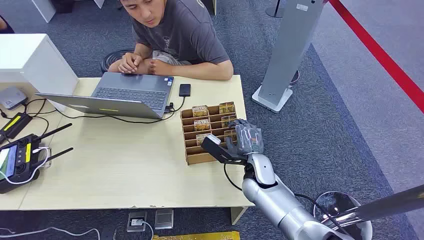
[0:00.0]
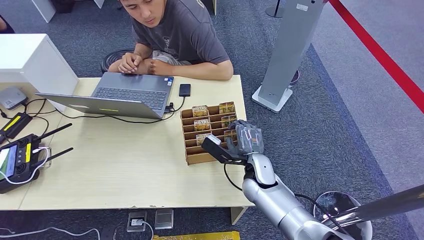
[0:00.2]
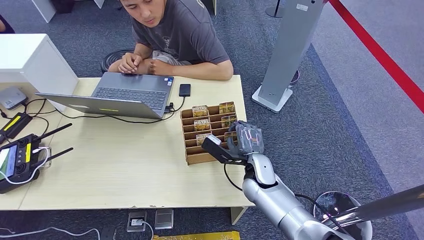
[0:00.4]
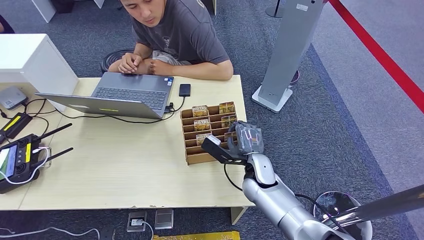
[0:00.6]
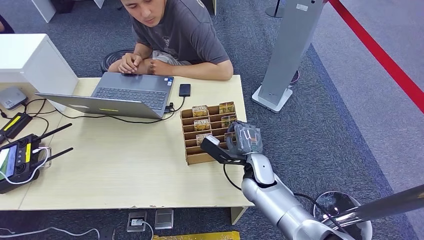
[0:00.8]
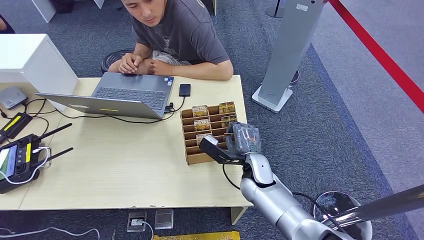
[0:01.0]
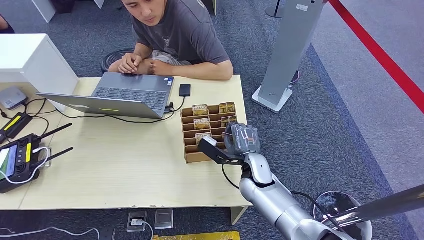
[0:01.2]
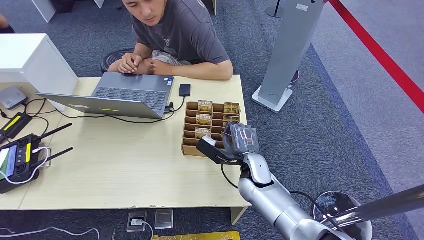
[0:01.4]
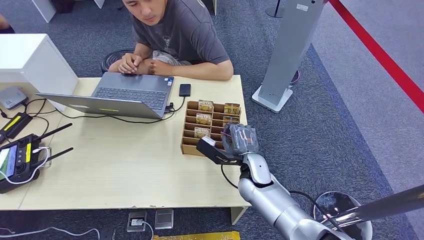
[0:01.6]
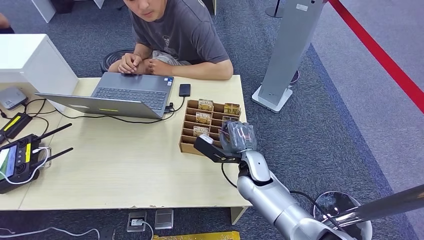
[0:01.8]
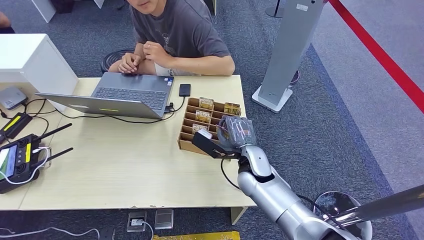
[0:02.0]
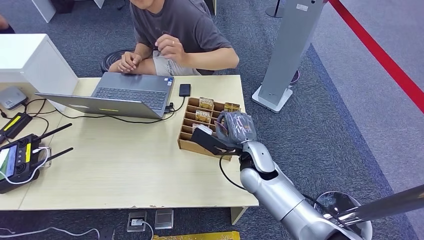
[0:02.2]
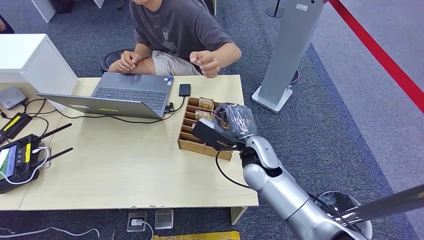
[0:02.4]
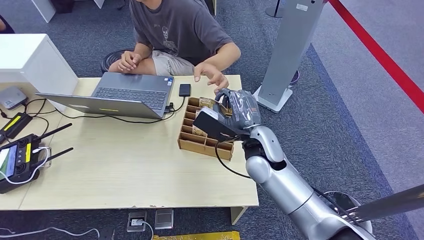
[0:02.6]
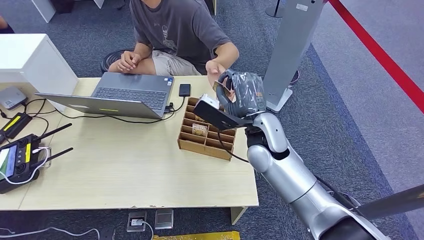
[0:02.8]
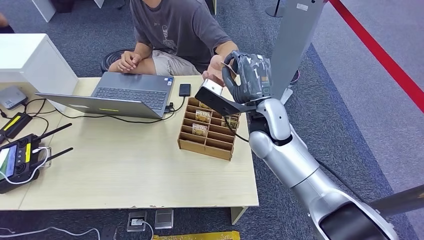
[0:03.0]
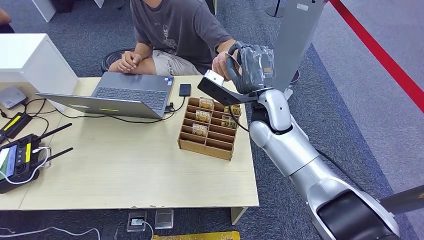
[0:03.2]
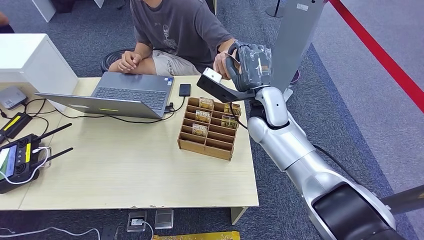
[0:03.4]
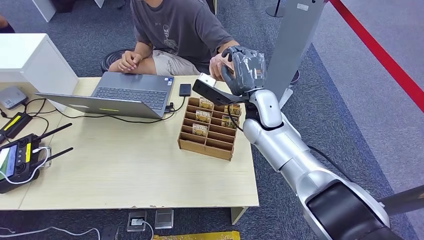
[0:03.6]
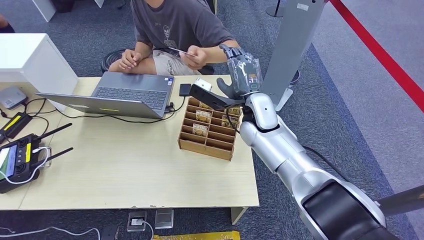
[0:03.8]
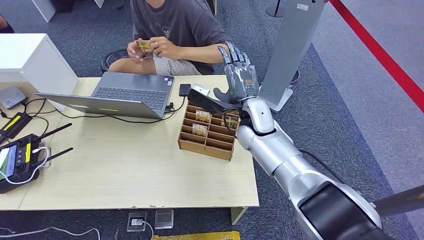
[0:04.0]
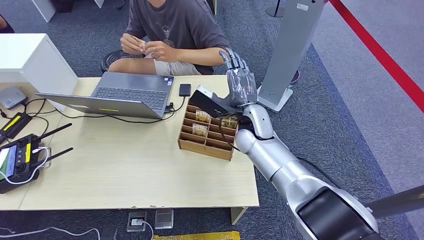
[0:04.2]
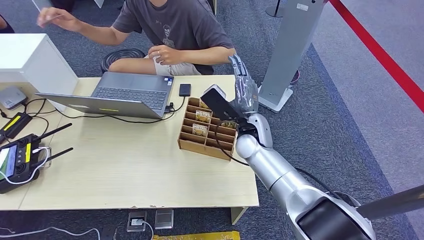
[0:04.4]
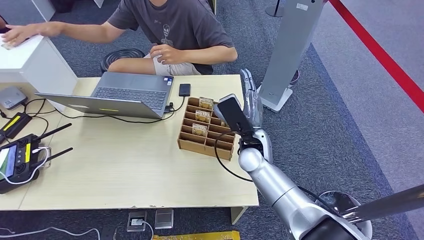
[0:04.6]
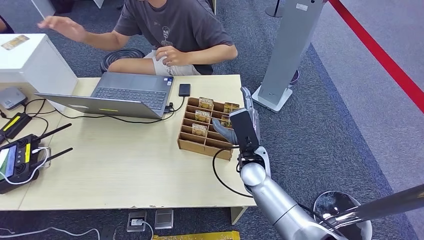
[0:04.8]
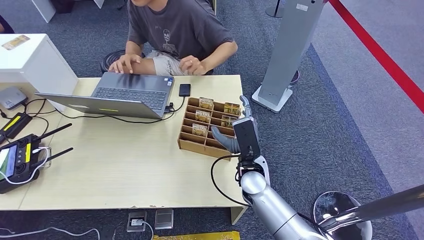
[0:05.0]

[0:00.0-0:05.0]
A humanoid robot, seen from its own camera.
Step, 0:00.0 to 0:02.2: Pick up the room card from the card holder.
Step, 0:02.4 to 0:05.0: Hand the room card to the target.
0:01.6 to 0:03.4: The right hand is displaced upward and forward by about 20 cm.
0:03.4 to 0:05.0: The right hand moves downward and backward, roughly 20 cm.

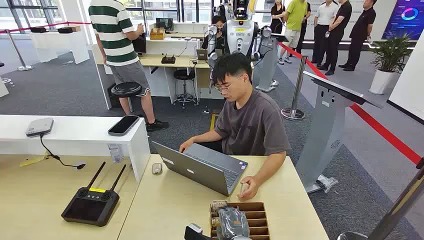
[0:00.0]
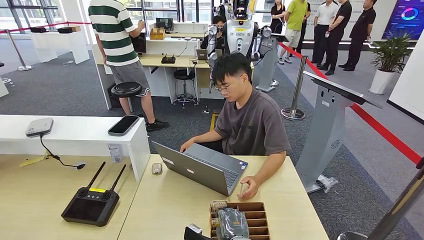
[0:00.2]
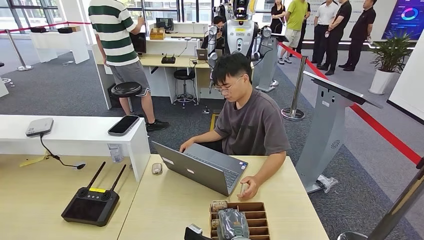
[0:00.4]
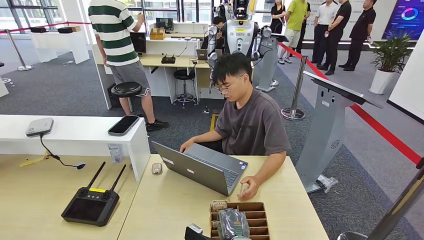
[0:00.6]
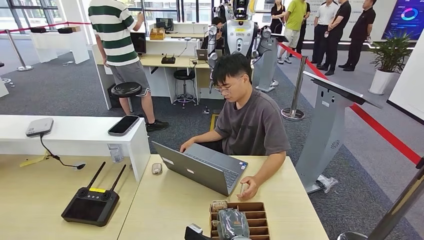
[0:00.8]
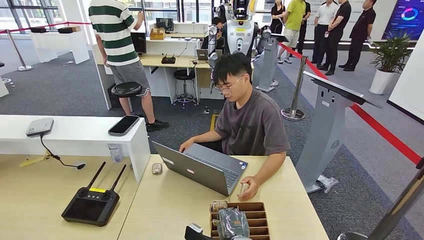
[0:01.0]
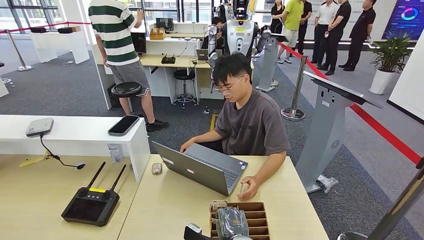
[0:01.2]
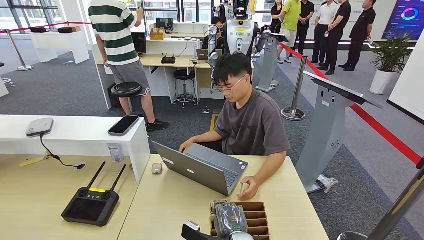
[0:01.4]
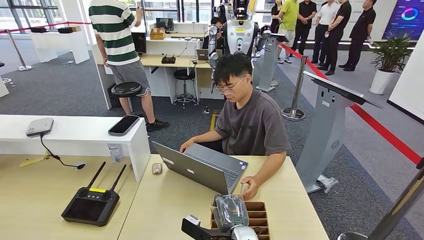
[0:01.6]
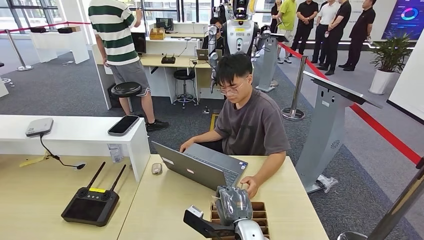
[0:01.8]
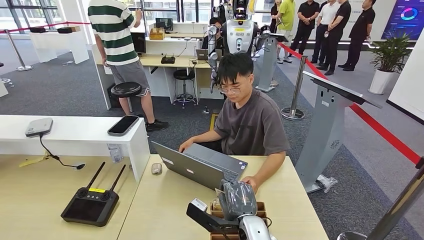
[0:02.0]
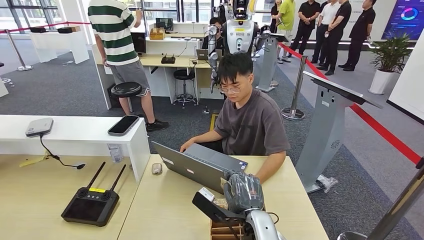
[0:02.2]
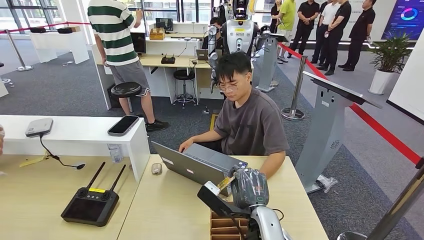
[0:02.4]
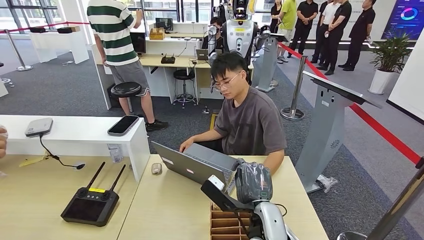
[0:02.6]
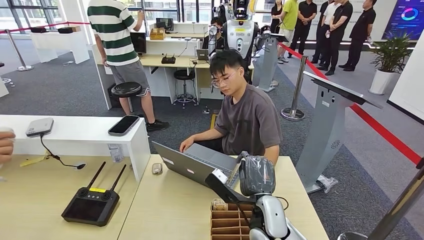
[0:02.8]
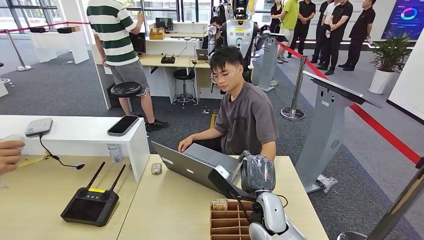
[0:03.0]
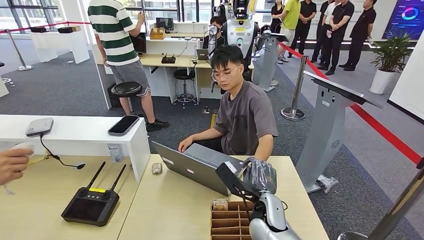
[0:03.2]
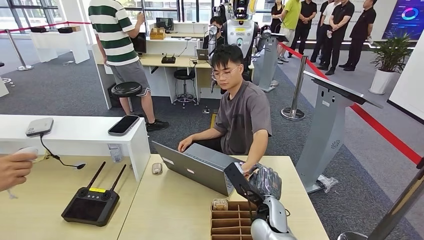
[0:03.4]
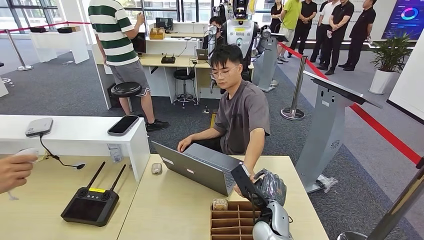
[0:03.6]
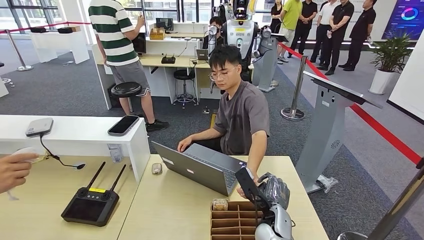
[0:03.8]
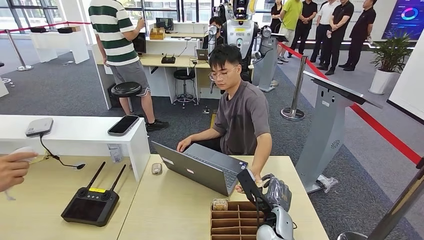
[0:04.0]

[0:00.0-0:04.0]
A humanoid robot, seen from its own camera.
Step, 0:00.0 to 0:01.4: Pick up the room card from the card holder.
Step, 0:02.6 to 0:04.0: Hand the room card to the target.
0:01.4 to 0:02.6: The right hand shifts about 10 cm upward.
0:02.6 to 0:04.0: The right hand is displaced downward by about 10 cm.
